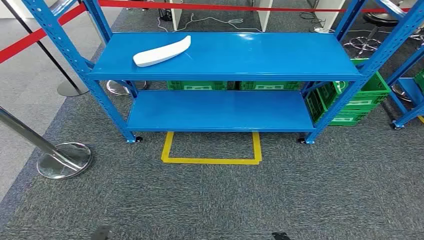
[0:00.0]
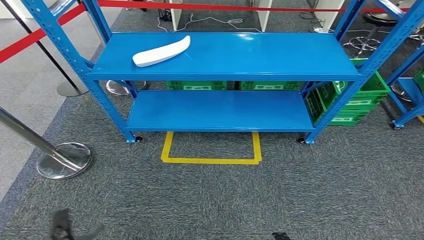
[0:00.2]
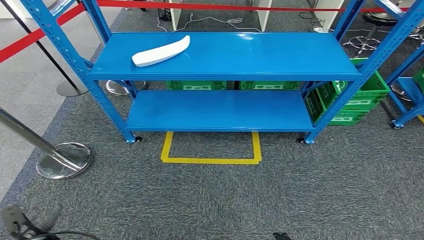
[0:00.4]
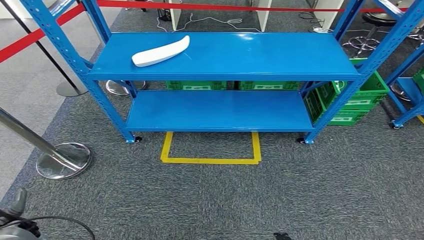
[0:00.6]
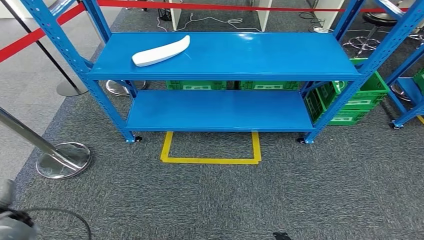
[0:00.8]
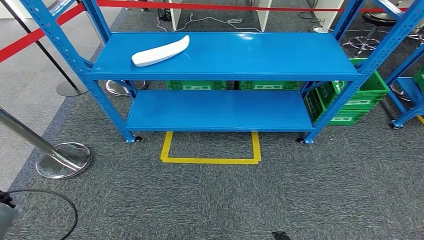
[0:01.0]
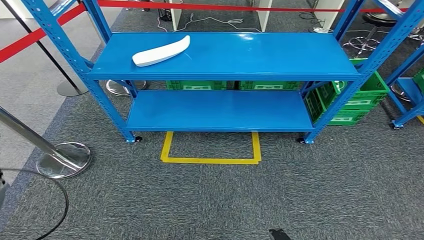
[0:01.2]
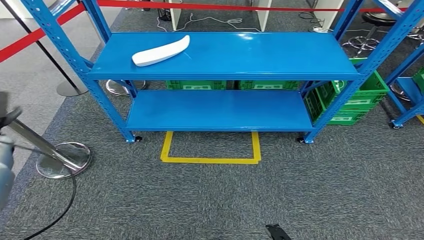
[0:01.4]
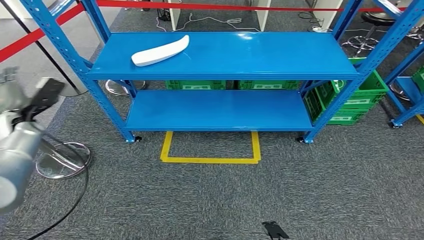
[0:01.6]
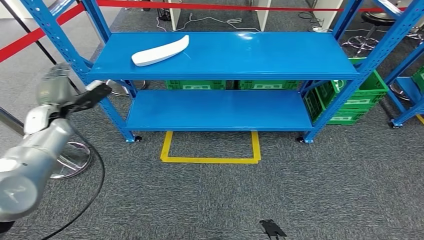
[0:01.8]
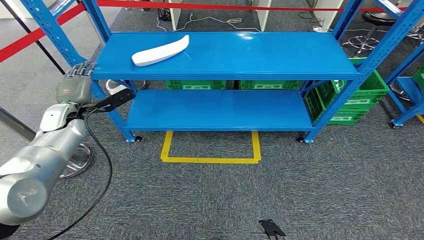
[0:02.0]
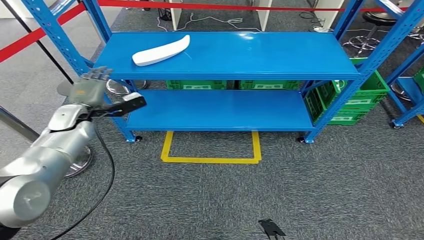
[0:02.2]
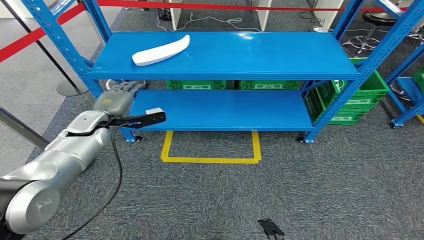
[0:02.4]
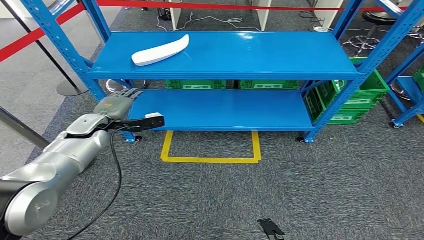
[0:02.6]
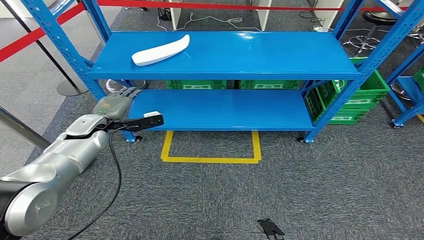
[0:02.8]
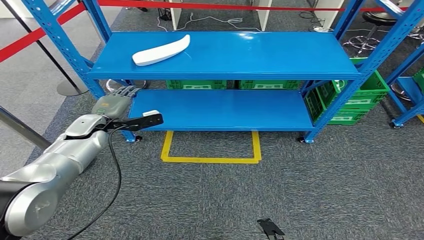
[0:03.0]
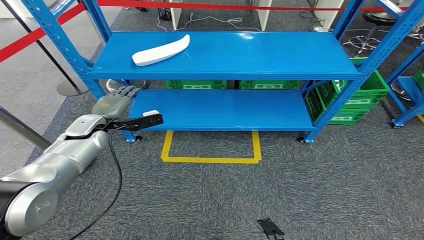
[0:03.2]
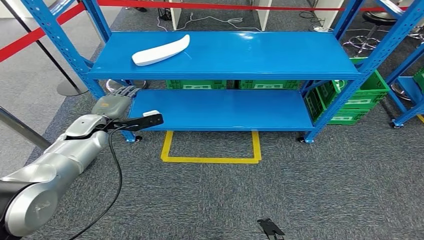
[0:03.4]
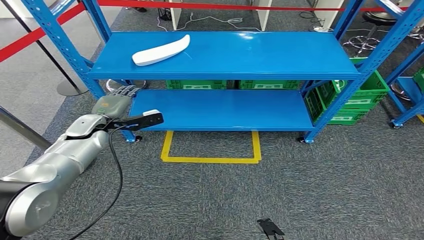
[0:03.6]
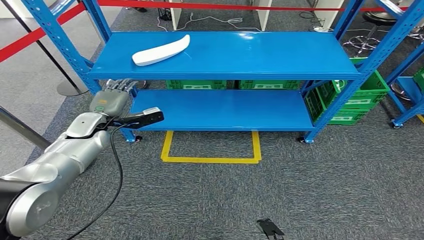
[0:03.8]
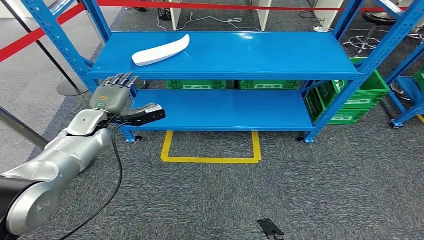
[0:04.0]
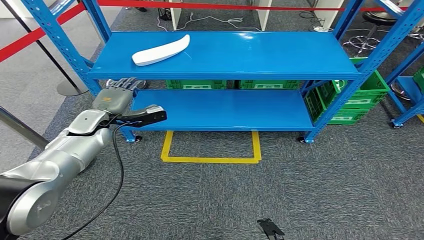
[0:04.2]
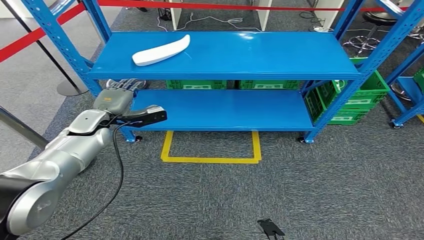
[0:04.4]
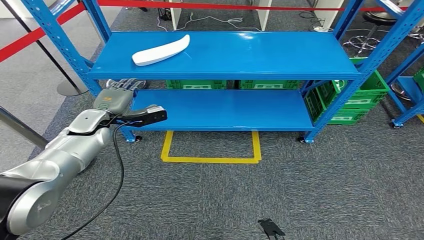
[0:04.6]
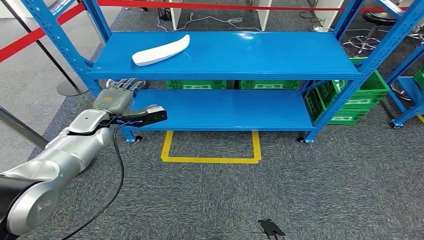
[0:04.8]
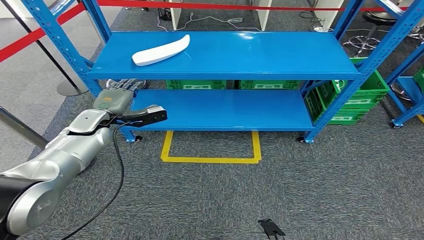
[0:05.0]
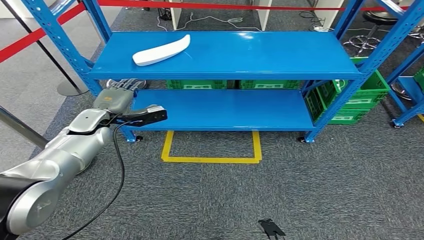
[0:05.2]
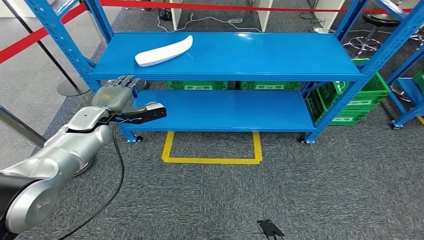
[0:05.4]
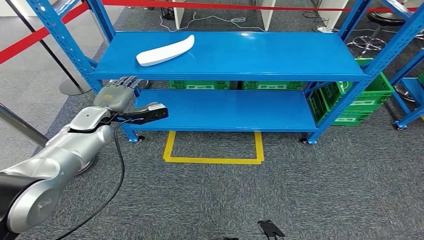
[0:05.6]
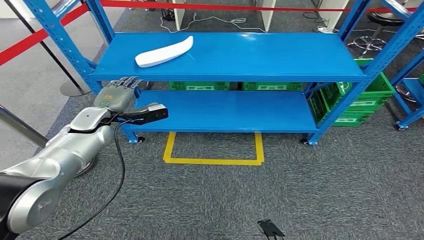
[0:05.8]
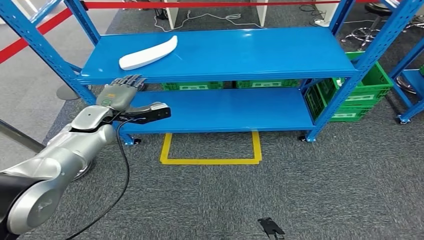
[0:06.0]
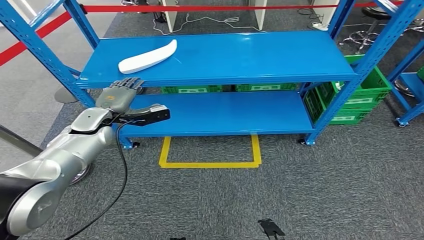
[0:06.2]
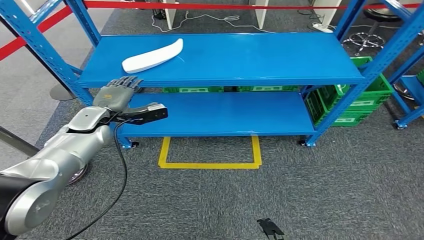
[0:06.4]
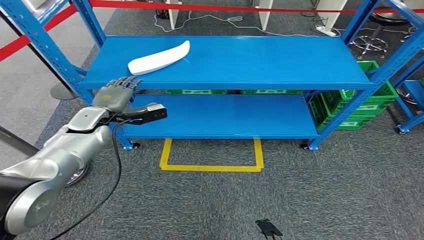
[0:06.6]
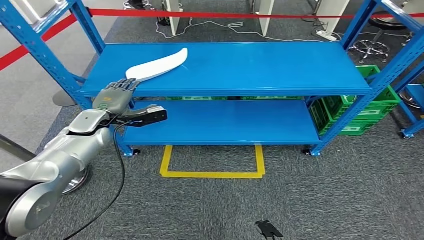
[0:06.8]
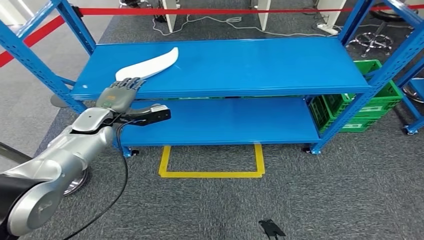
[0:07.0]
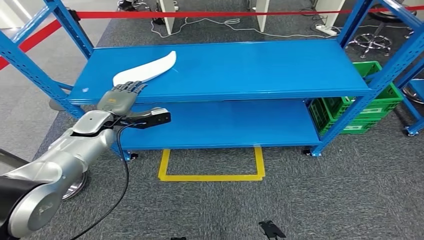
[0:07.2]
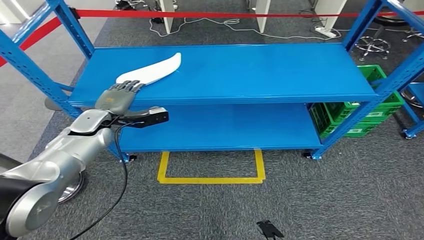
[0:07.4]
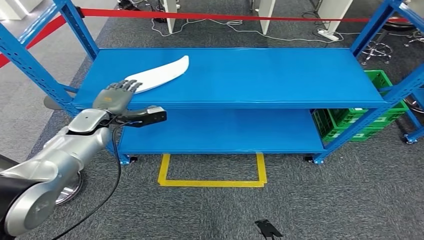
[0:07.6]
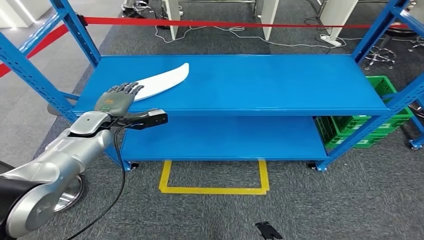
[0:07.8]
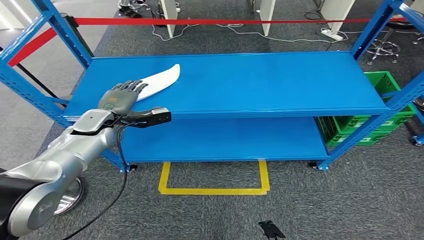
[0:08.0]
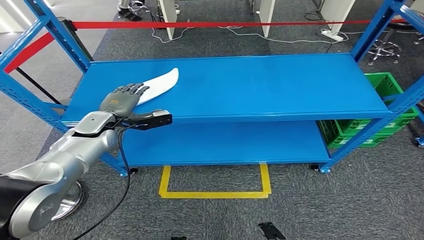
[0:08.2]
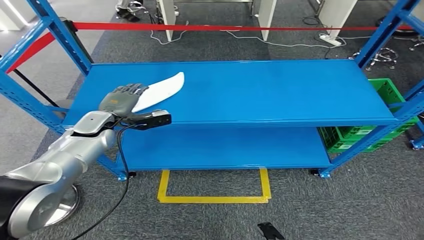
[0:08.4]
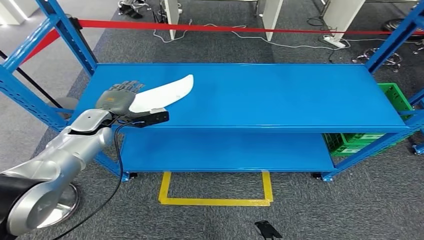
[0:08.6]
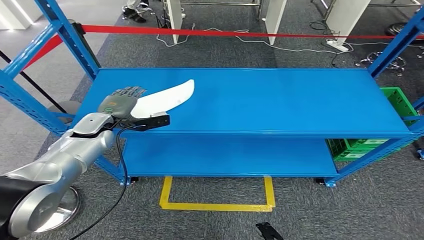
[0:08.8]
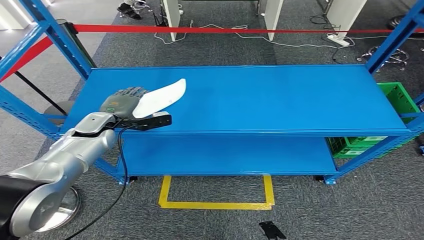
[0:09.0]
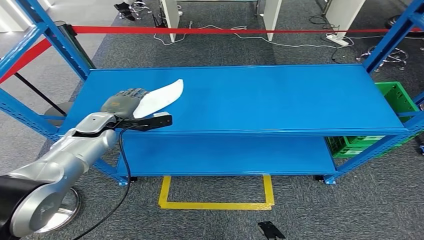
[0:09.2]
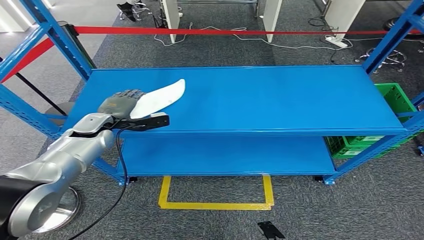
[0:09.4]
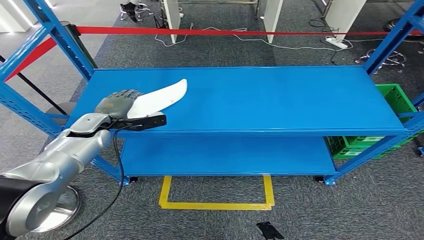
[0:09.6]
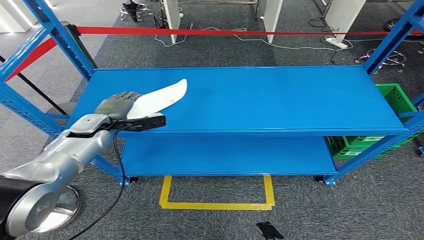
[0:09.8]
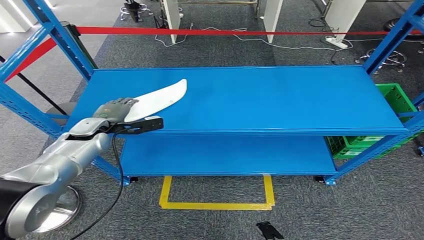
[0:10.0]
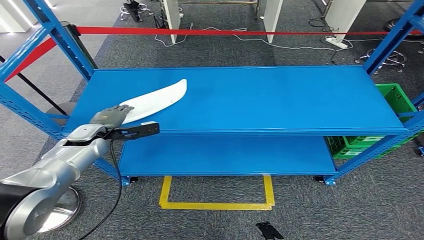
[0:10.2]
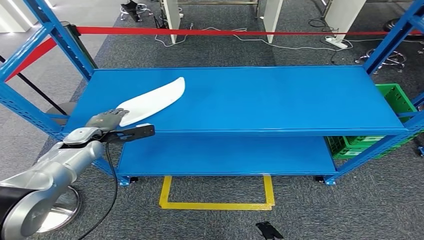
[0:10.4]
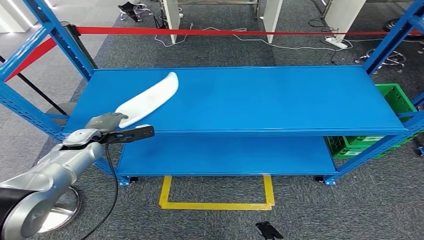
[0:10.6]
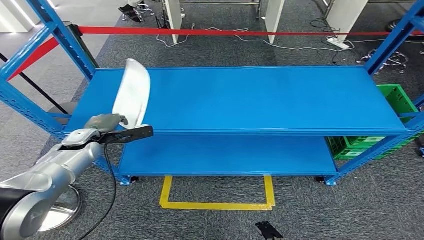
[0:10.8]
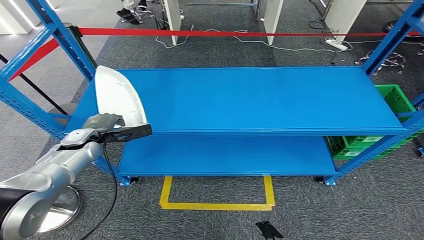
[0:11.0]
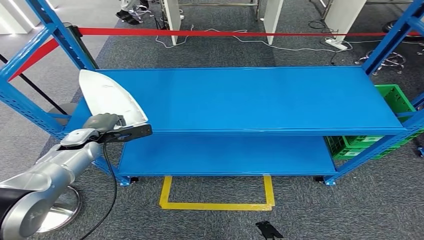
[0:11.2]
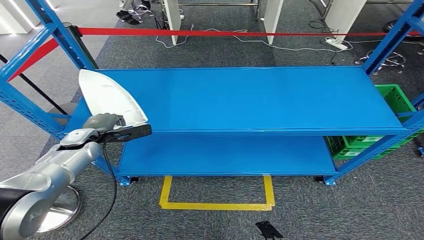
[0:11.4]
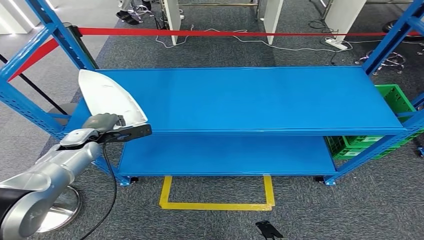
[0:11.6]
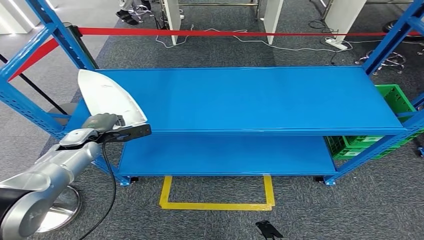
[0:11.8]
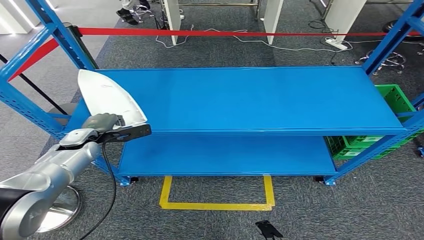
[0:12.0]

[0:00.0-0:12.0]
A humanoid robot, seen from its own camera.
0:01.6 to 0:03.0: The left hand moves to the right, some 15 cm.
0:03.0 to 0:04.4: The hands make only small movements.
0:04.4 to 0:06.0: Both hands stay about where they are.
0:09.0 to 0:10.4: The left hand changes place by roughly 5 cm.
0:10.4 to 0:12.0: Neither hand changes place.

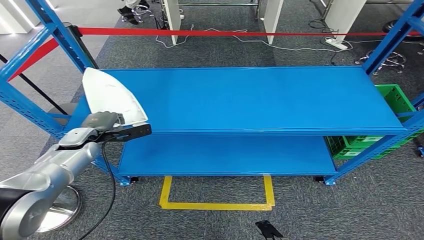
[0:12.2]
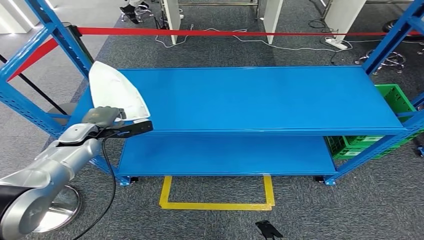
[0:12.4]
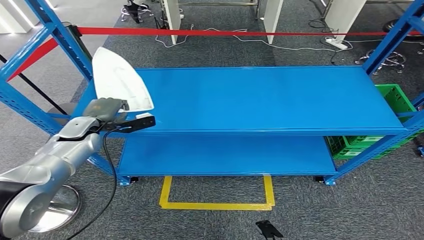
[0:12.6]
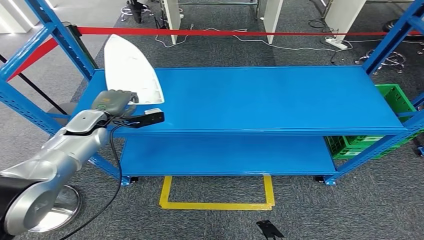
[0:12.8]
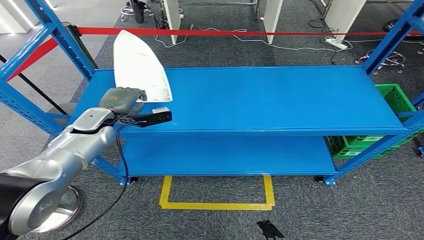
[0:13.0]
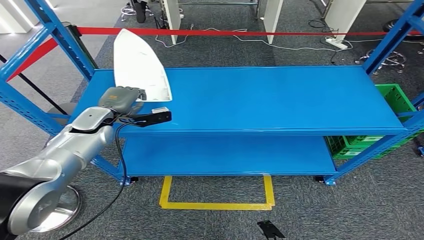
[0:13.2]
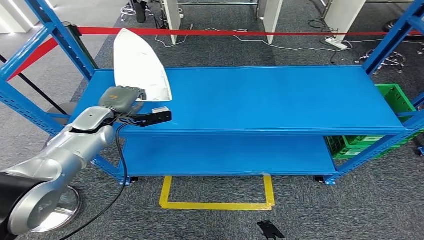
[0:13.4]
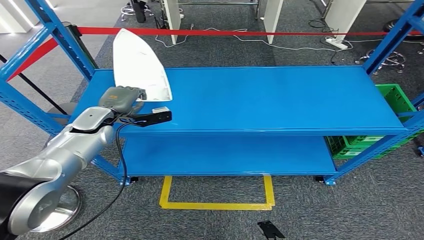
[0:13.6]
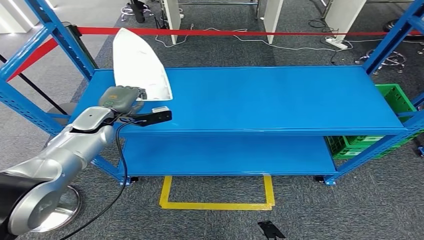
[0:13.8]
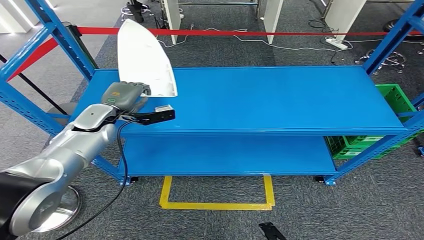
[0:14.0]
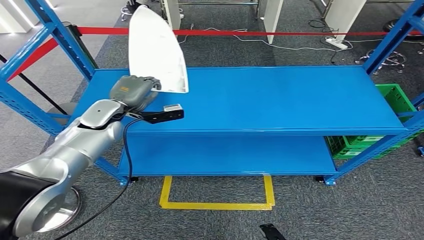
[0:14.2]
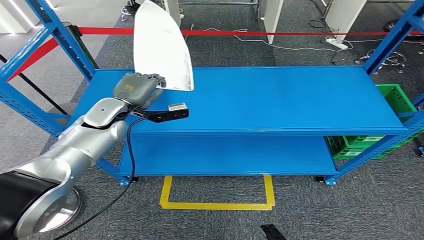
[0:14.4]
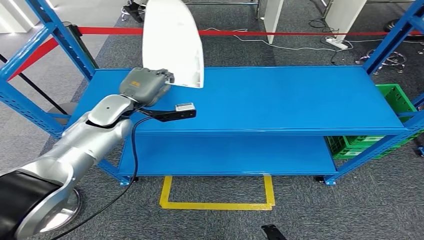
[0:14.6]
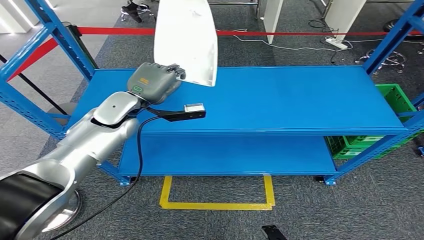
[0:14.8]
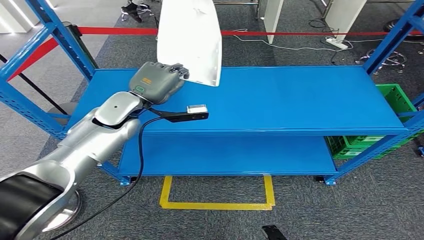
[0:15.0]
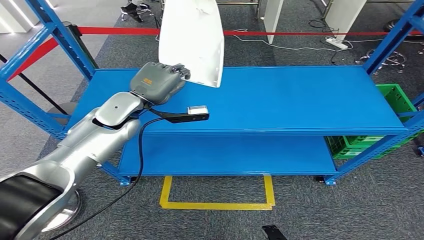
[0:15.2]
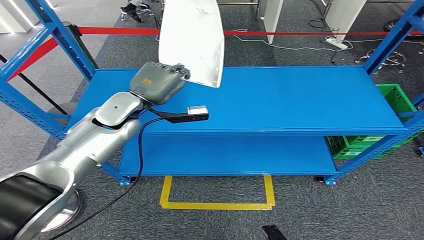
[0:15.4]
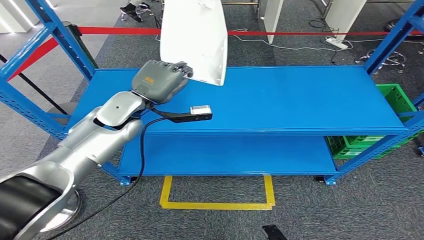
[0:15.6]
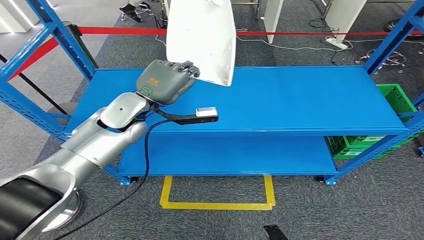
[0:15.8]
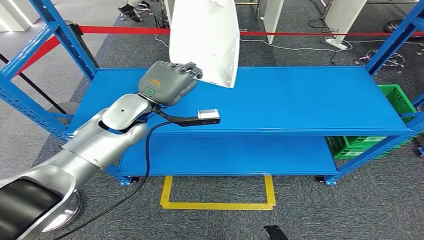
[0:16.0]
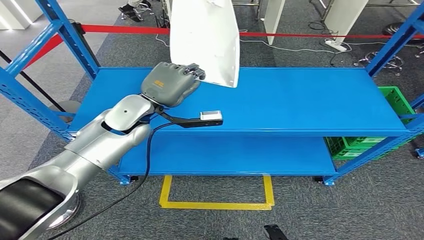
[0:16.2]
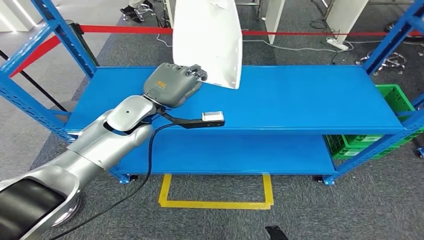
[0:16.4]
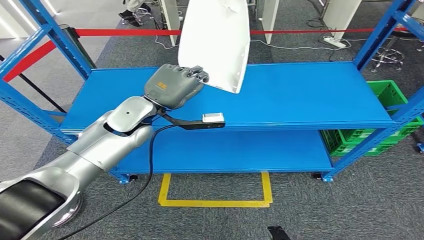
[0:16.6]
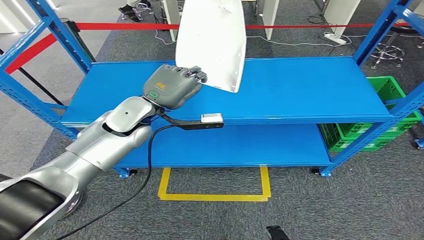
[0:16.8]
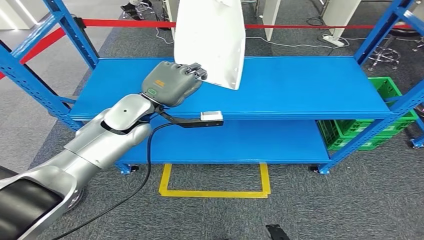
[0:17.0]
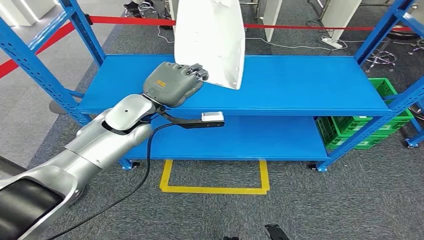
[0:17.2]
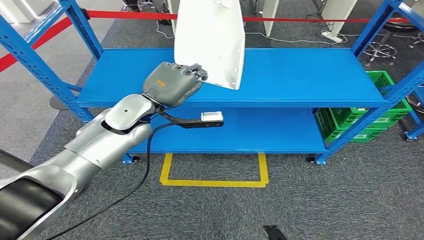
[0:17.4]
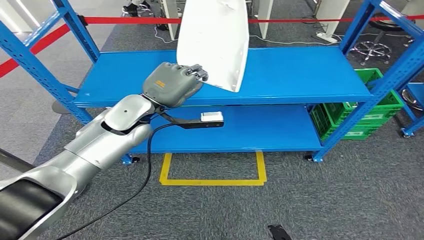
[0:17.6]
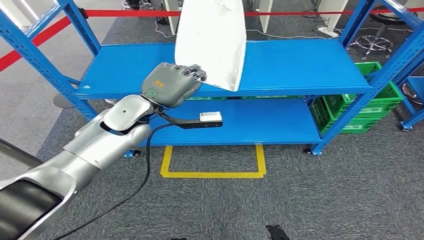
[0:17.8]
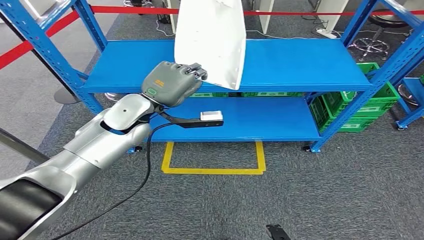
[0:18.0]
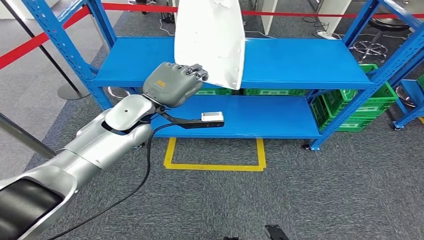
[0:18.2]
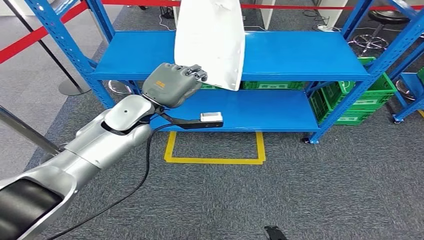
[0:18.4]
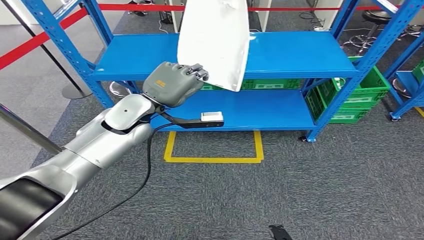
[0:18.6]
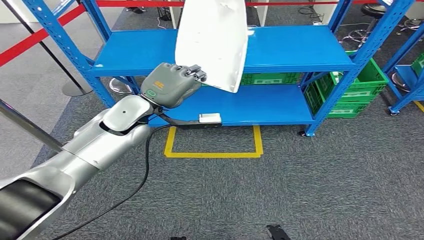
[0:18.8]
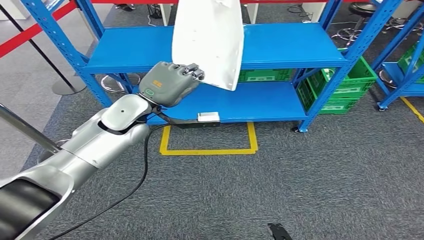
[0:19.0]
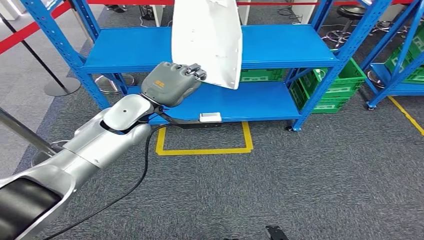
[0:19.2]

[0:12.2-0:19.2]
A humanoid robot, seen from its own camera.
0:12.2 to 0:13.6: The left hand travels upward and to the right by about 10 cm.
0:13.6 to 0:15.0: The left hand moves to the right and upward, about 10 cm.
